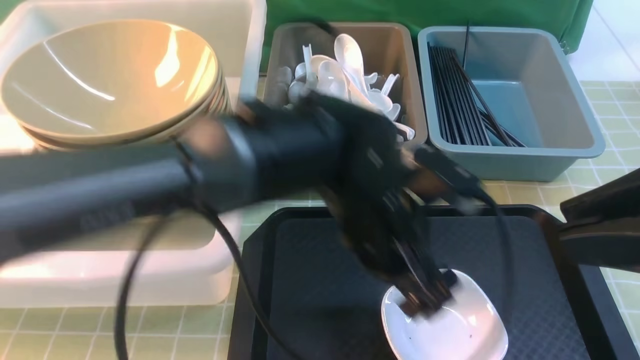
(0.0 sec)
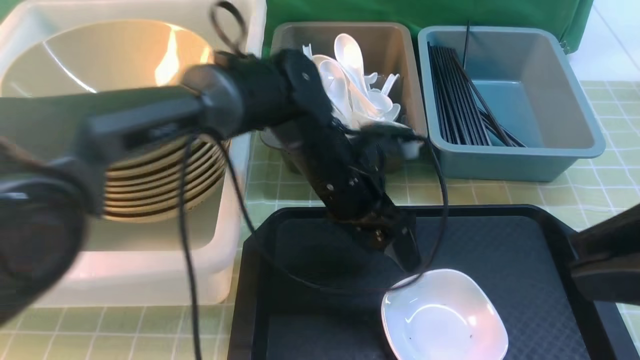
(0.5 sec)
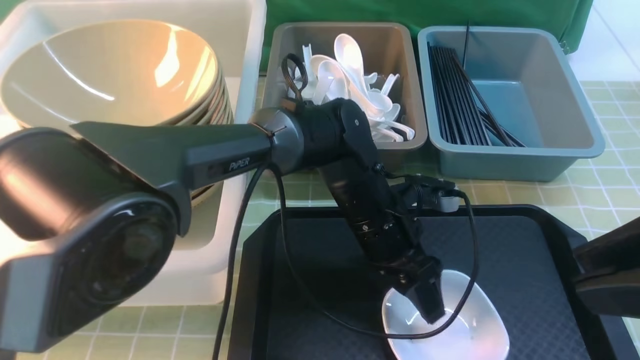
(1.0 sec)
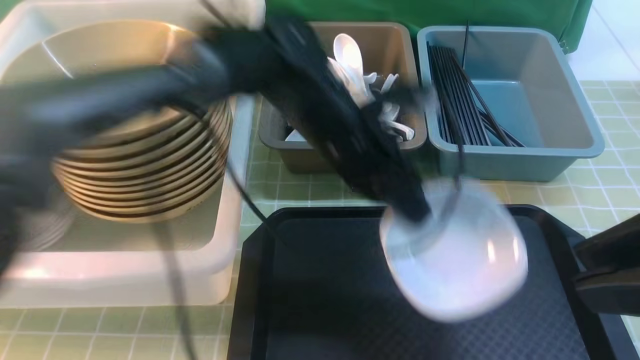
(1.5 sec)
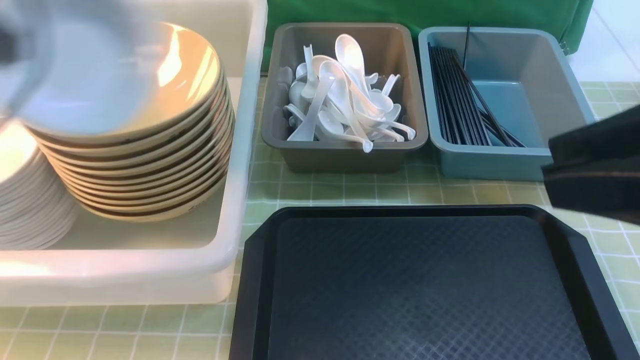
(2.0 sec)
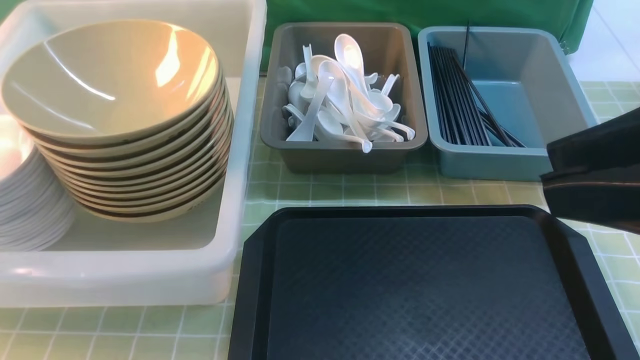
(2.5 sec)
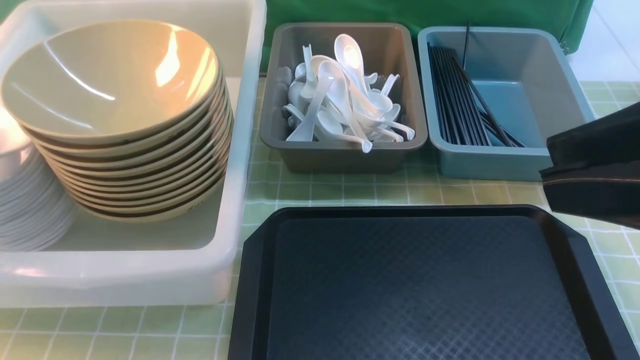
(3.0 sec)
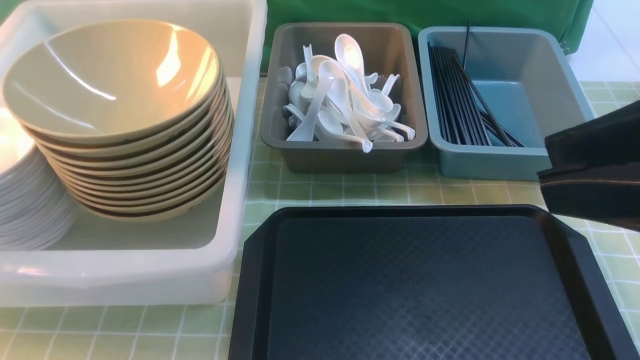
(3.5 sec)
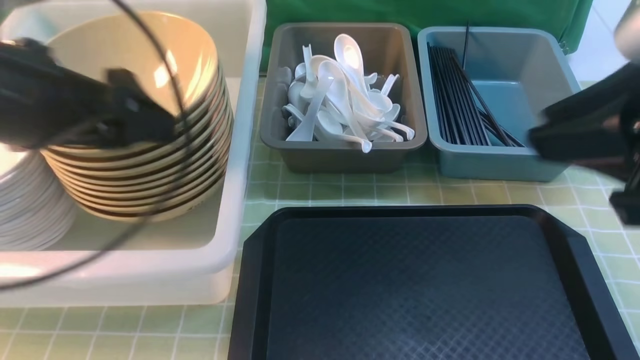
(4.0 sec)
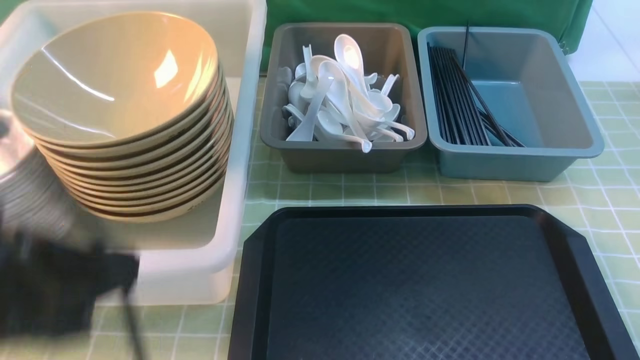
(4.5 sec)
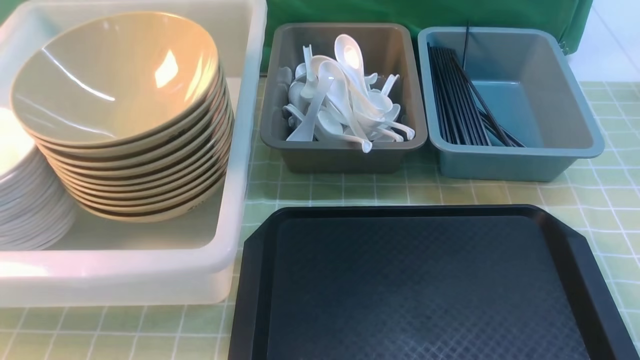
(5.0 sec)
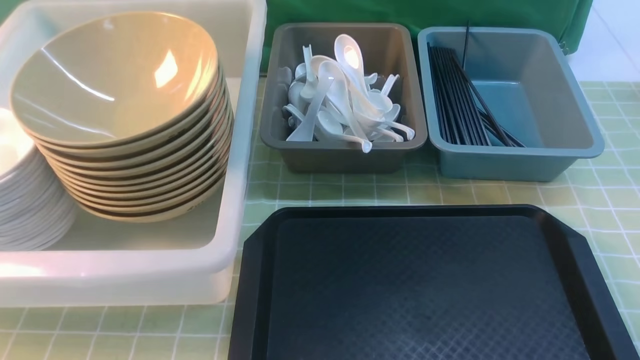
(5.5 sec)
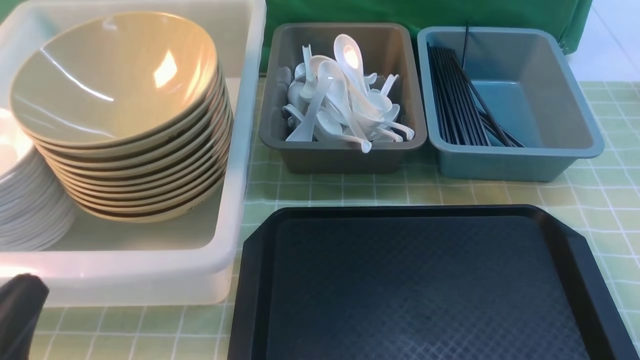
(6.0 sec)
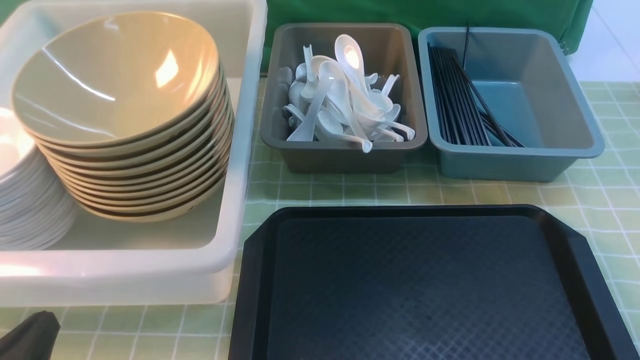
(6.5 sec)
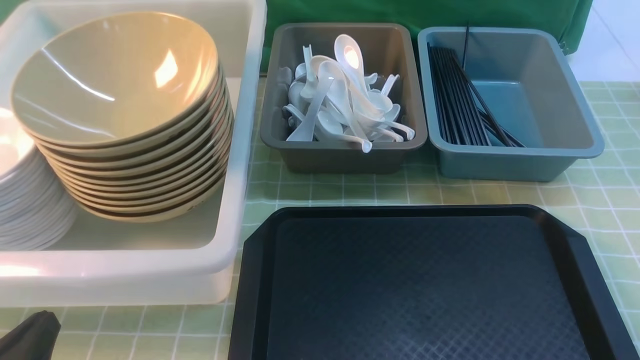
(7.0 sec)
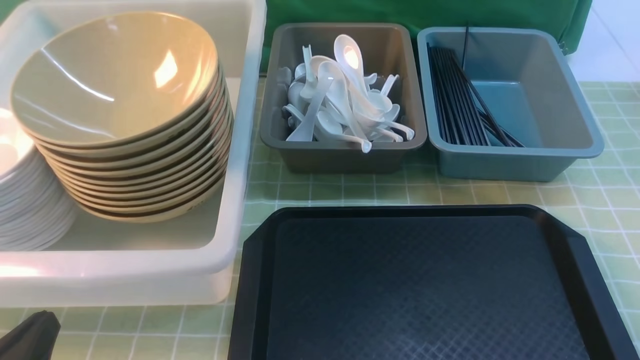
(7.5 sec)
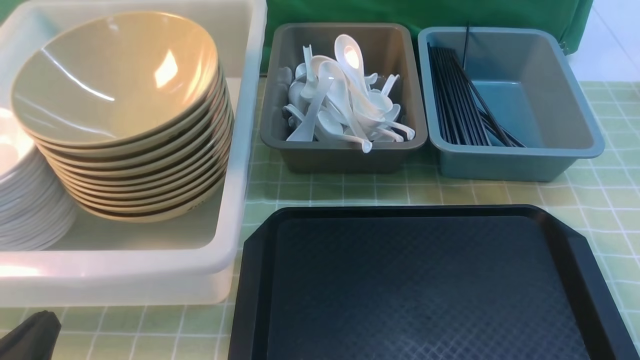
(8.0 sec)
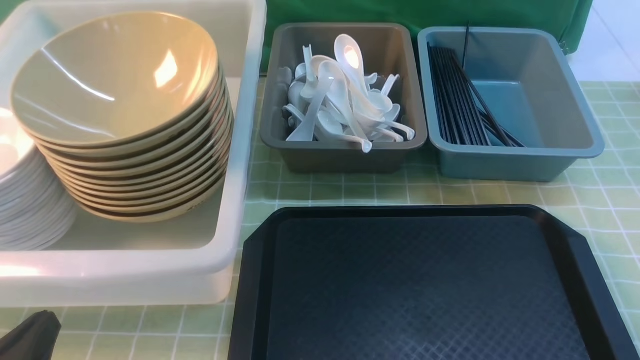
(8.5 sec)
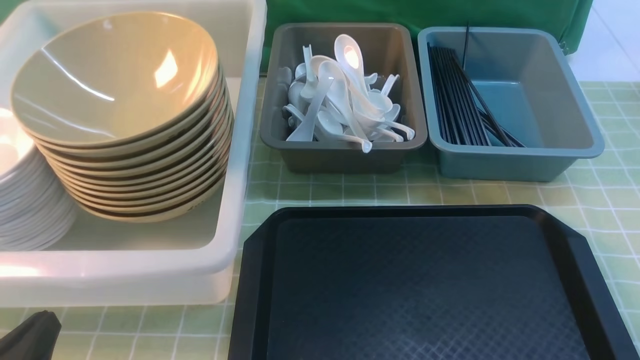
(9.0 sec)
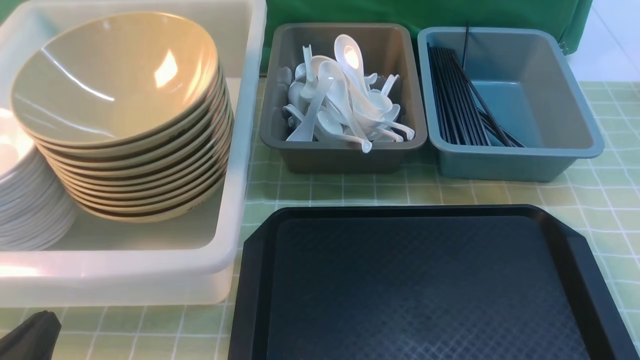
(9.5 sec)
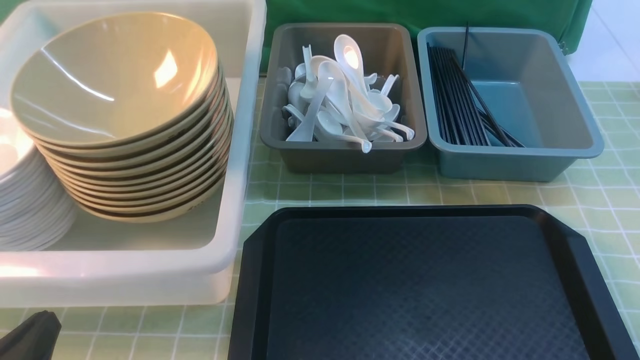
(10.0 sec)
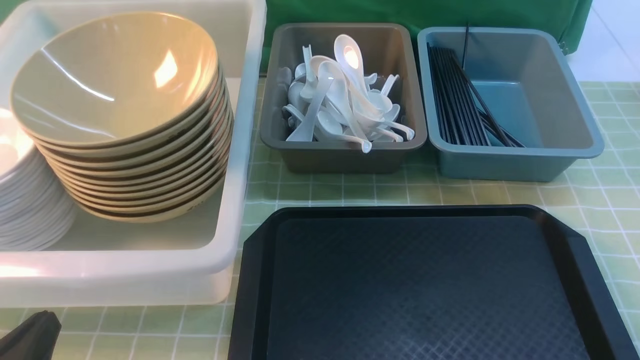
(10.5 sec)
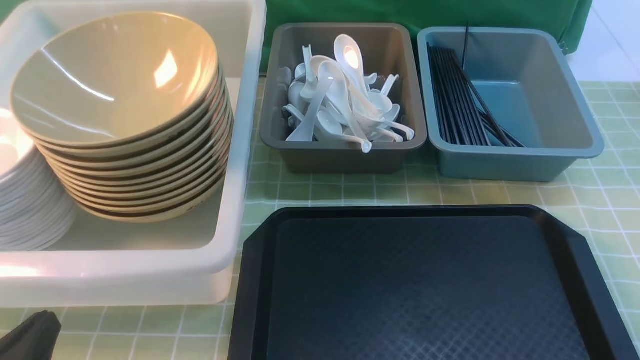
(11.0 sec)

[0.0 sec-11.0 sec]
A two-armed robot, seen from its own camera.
Task of the whole recording: on green table put chopsticks spoon bowls plates into blue grey white boxes.
Step, 1.5 sec to 3.5 sec: use the left arm to put the plate into the large storage box on the left.
0.0 sec to 2.0 sec: The left gripper is displaced to the left and upward by roughly 40 cm, and closes its fingers.
2.0 sec to 3.5 sec: The left gripper is displaced downward and to the left by roughly 15 cm, and opens.
3.5 sec to 5.5 sec: The right gripper heads downward, to the right and backward, covering about 20 cm. The left gripper travels backward and to the right by some 30 cm, and closes its fingers.
5.5 sec to 7.5 sec: The left gripper heads downward and forward, covering about 10 cm.
9.0 sec to 11.0 sec: Both grippers stay put.

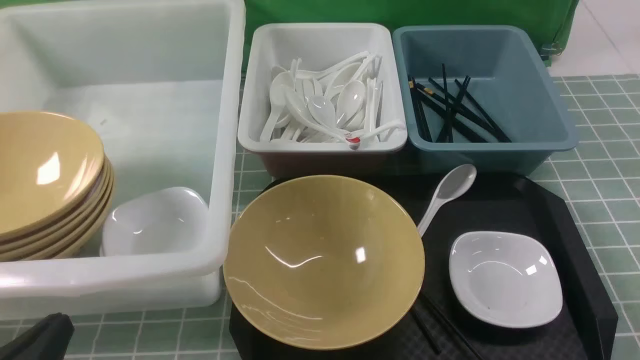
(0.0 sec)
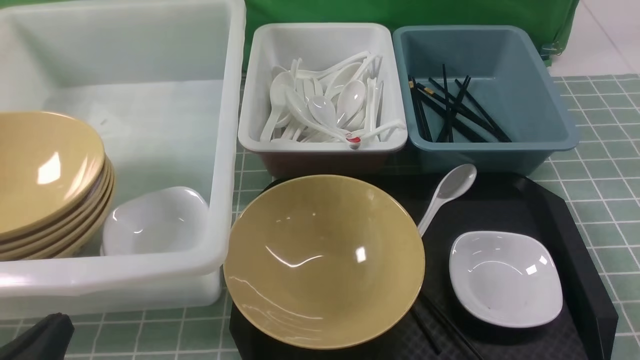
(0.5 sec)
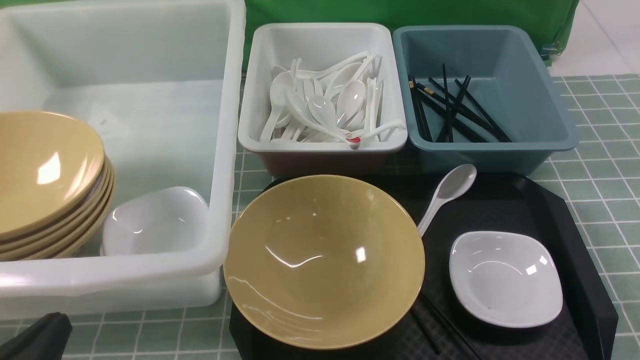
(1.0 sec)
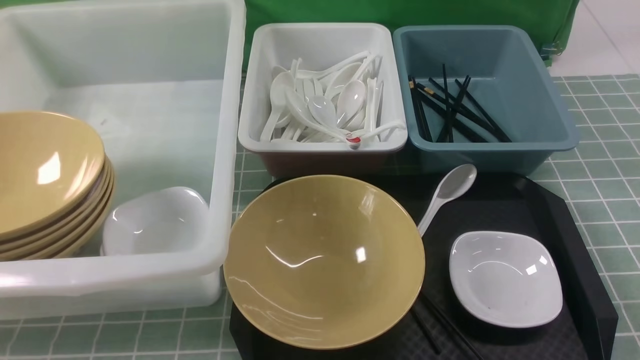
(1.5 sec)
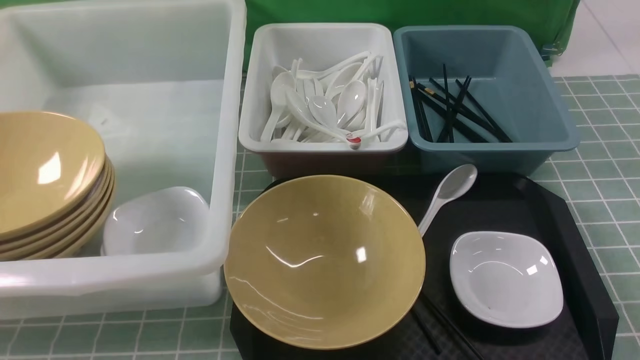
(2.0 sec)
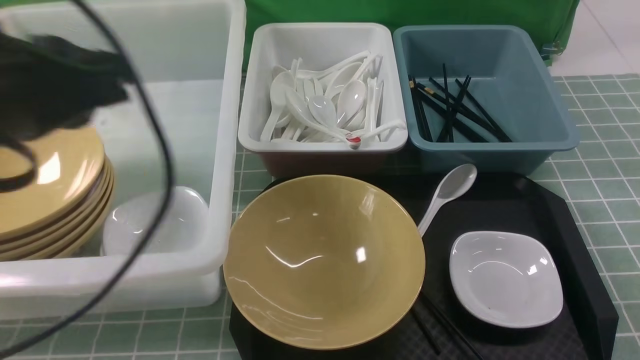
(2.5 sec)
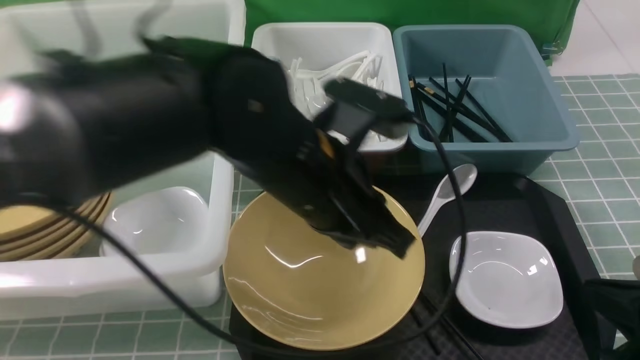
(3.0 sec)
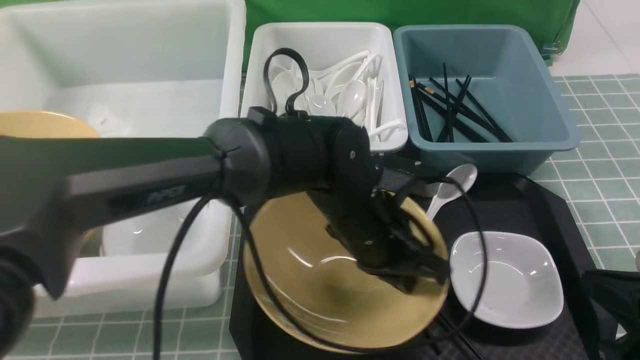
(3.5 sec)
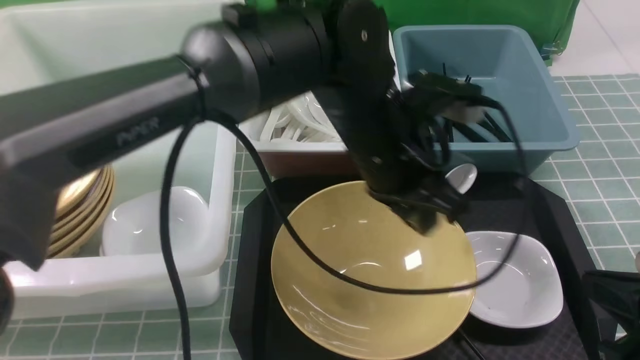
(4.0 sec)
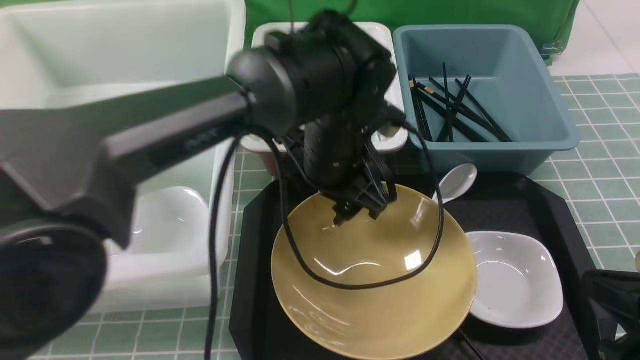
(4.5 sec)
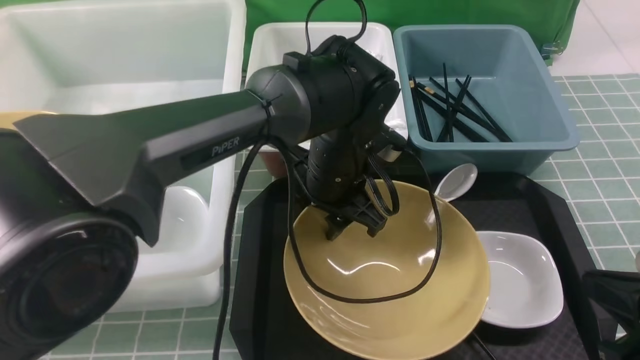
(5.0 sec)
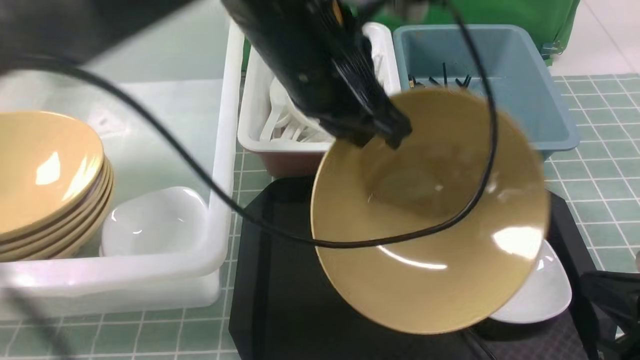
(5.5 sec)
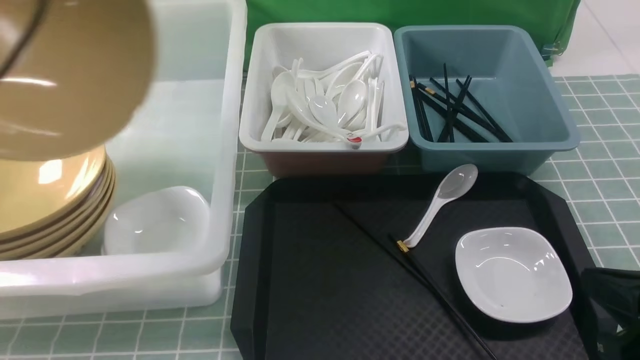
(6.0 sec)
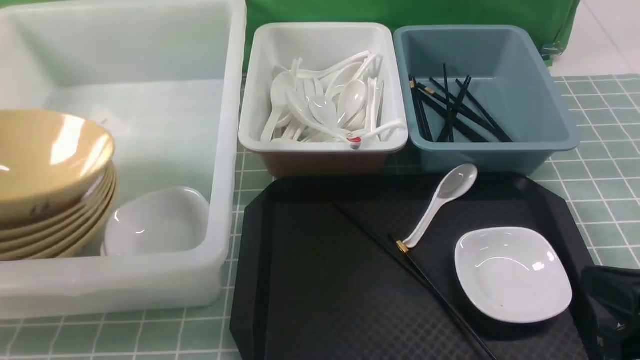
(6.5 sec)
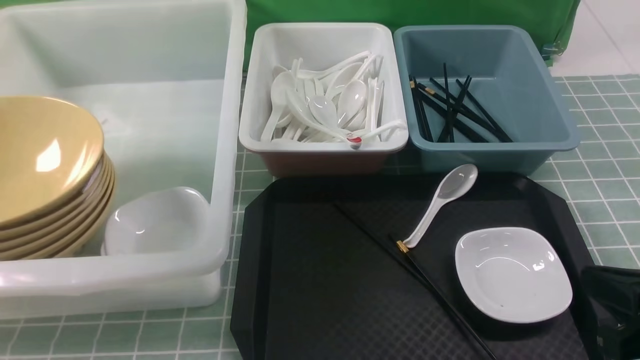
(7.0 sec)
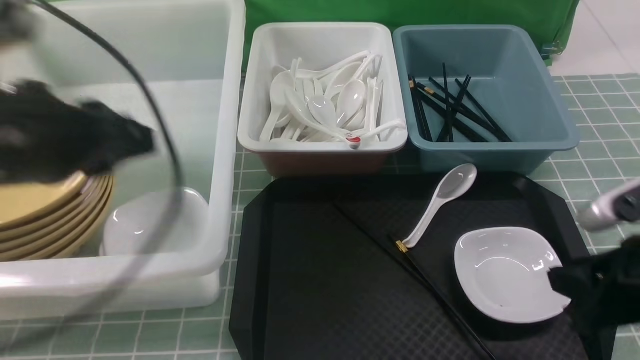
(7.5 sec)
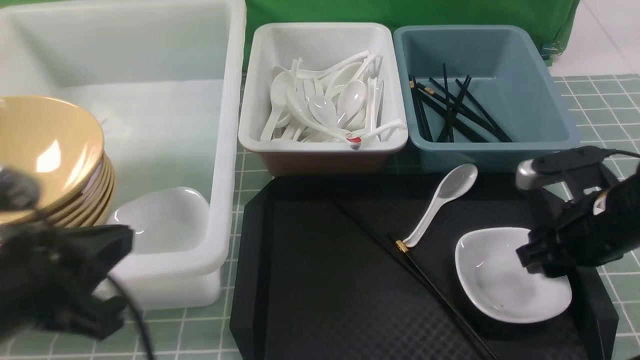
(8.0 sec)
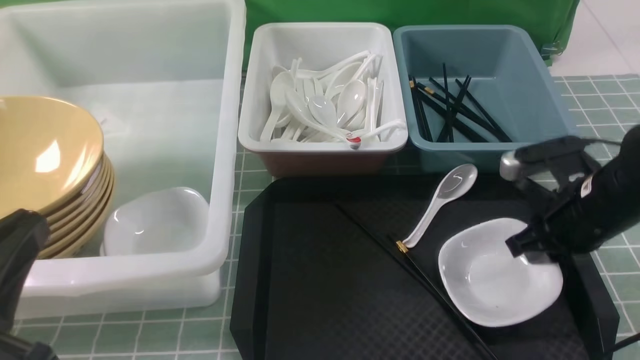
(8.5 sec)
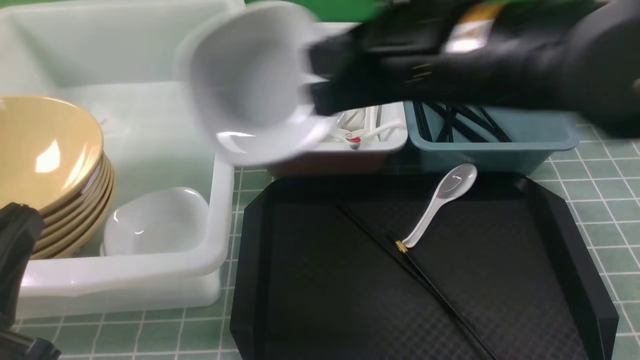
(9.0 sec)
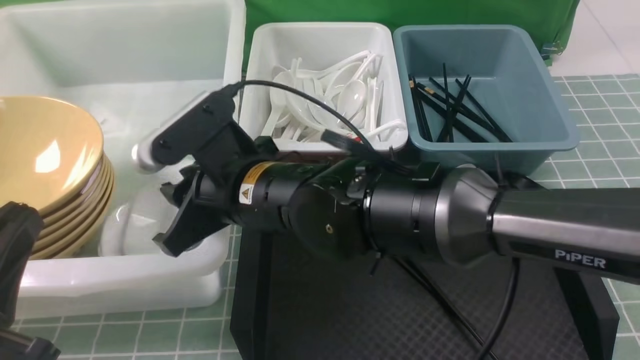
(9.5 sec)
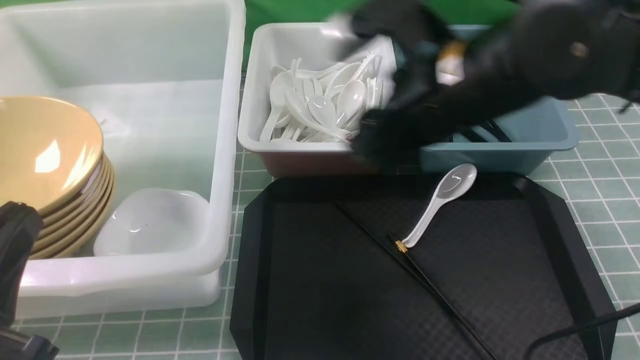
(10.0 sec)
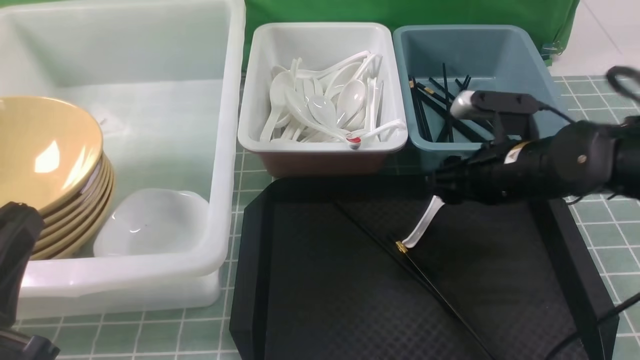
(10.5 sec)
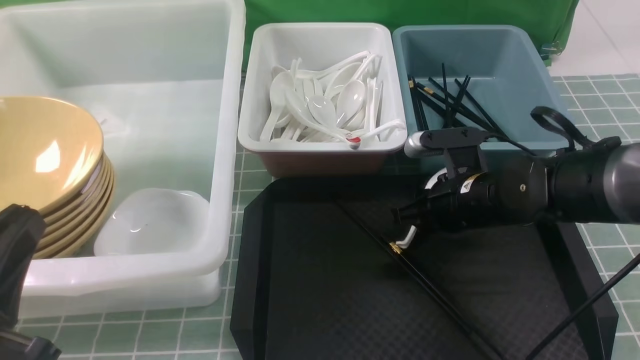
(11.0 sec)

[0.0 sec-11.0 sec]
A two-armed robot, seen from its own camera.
Task of the whole recording: on blue table put chopsticks spoon bowls plates into blue grey white boxes.
Step, 0.0 sec to 5.0 sec: use the left arm to grab the yellow noodle bowl on the left.
Step, 5.5 sec to 6.5 sec: use the left arm to put the noodle bowl into the large storage box on the left.
Step, 7.0 sec to 8.5 sec: use the right arm to grab the plate.
Step, 9.0 sec to 9.5 sec: use the right arm to put the plate into the large storage box on the left.
0.0 sec to 2.0 sec: The left gripper travels upward by about 20 cm.
2.0 sec to 3.5 sec: The left gripper heads to the right, forward and downward, covering about 40 cm; the right gripper shifts roughly 10 cm forward.
3.5 sec to 5.5 sec: The left gripper goes up and down, some 20 cm each way, reversing 2 times, and opens and closes again.
5.5 sec to 7.5 sec: The left gripper goes roughly 15 cm to the left, and opens and closes again; the right gripper travels forward by some 5 cm, and opens up.
7.5 sec to 9.0 sec: The right gripper is displaced to the left, upward and forward by roughly 25 cm, and closes; the left gripper goes approximately 15 cm backward and downward.
9.0 sec to 11.0 sec: The right gripper moves downward and to the right, roughly 20 cm, and opens.
